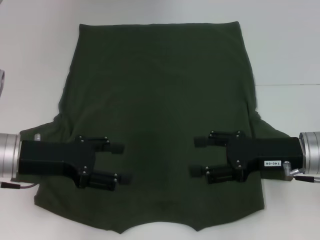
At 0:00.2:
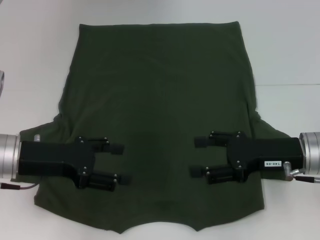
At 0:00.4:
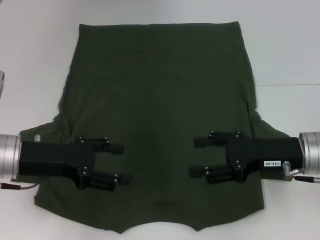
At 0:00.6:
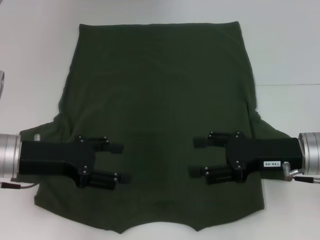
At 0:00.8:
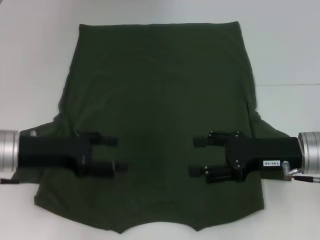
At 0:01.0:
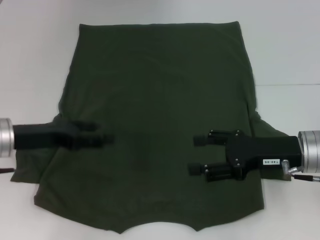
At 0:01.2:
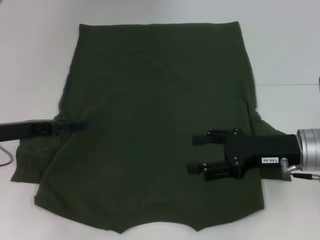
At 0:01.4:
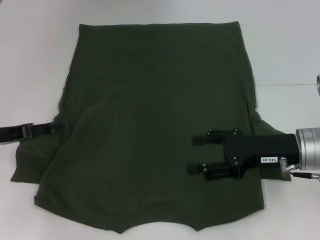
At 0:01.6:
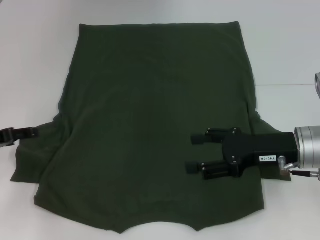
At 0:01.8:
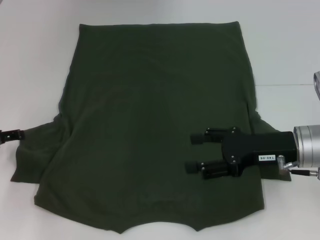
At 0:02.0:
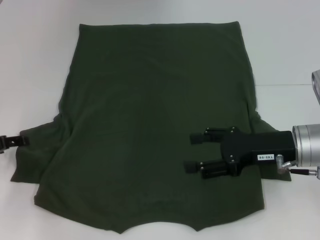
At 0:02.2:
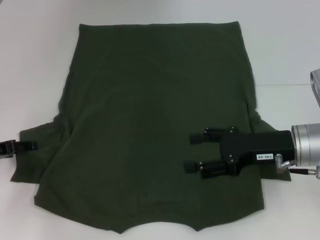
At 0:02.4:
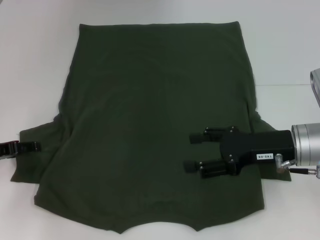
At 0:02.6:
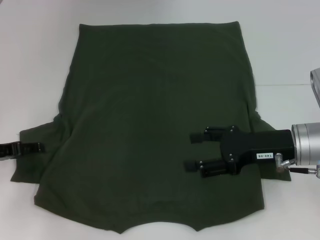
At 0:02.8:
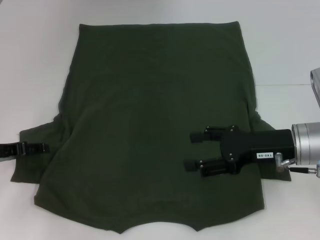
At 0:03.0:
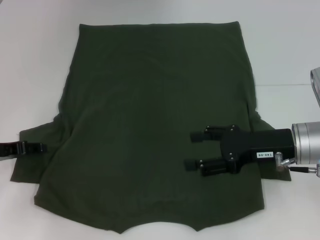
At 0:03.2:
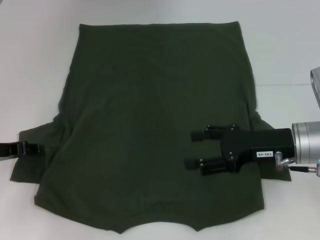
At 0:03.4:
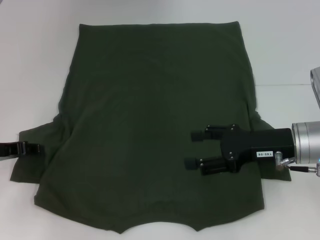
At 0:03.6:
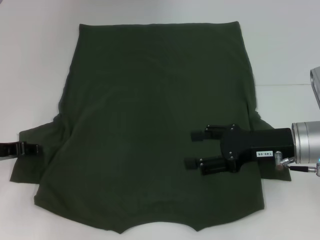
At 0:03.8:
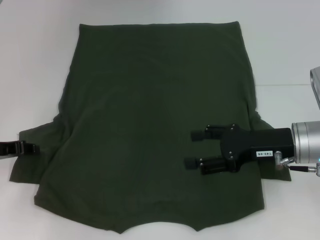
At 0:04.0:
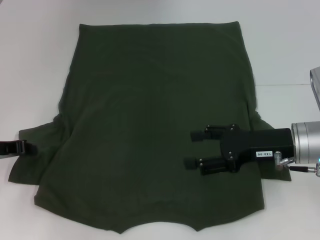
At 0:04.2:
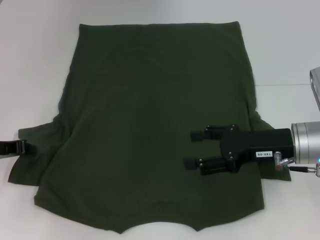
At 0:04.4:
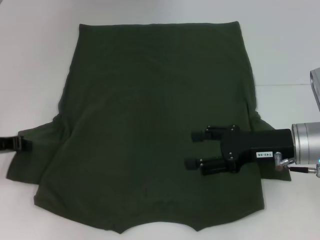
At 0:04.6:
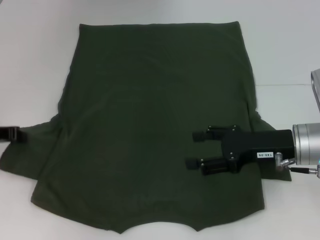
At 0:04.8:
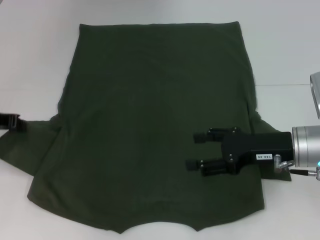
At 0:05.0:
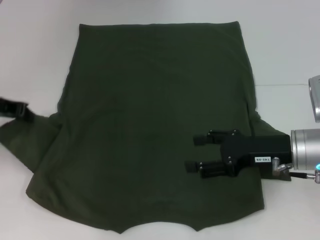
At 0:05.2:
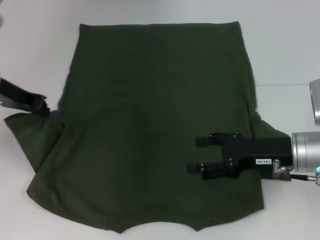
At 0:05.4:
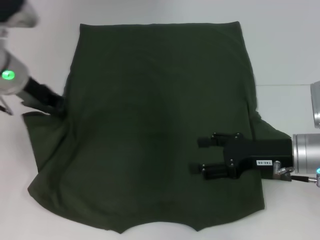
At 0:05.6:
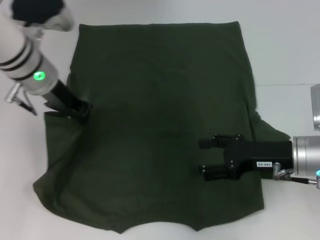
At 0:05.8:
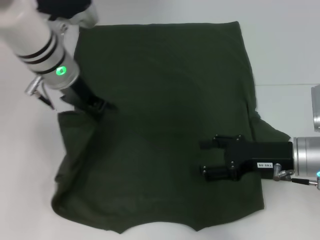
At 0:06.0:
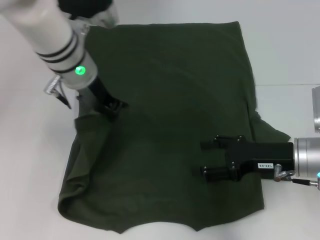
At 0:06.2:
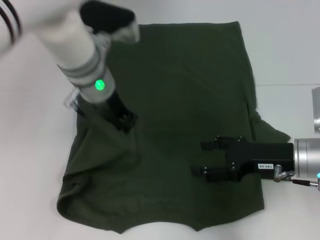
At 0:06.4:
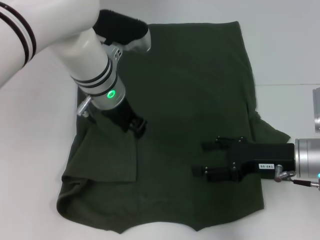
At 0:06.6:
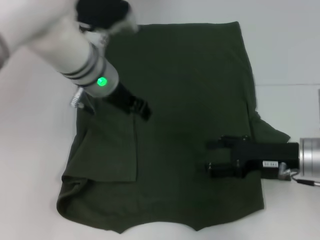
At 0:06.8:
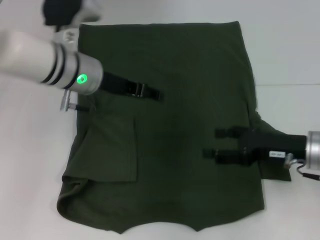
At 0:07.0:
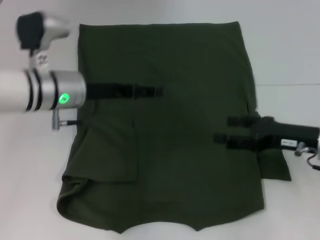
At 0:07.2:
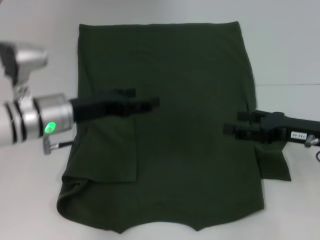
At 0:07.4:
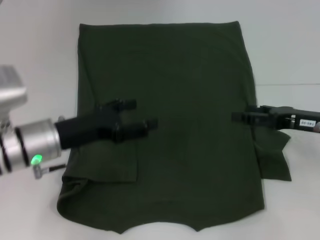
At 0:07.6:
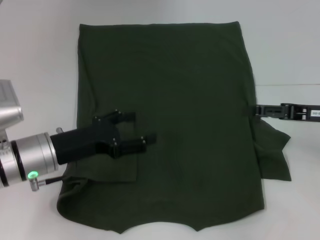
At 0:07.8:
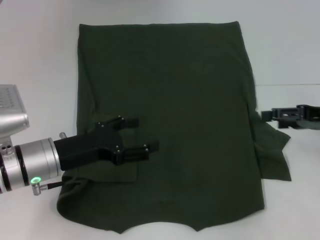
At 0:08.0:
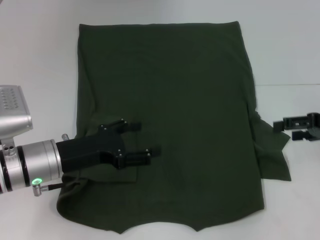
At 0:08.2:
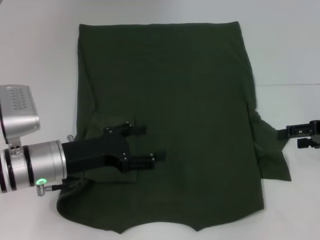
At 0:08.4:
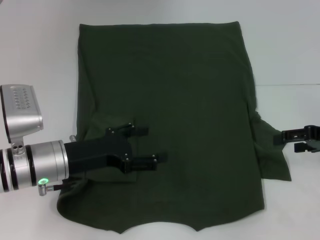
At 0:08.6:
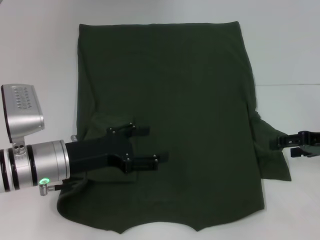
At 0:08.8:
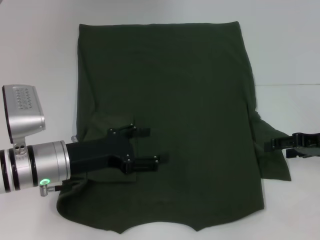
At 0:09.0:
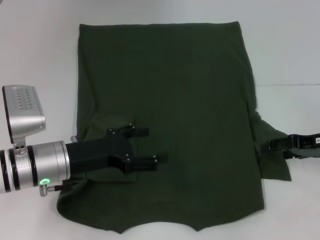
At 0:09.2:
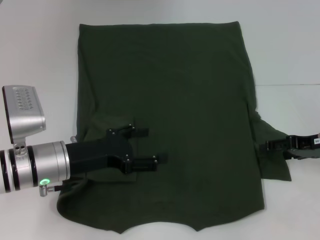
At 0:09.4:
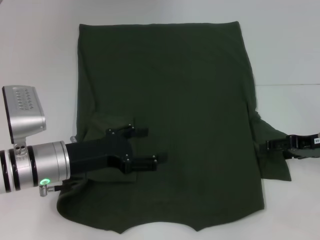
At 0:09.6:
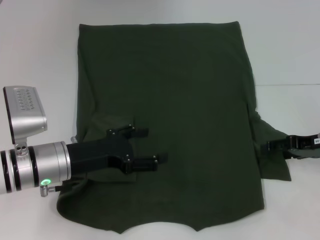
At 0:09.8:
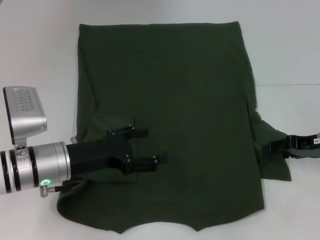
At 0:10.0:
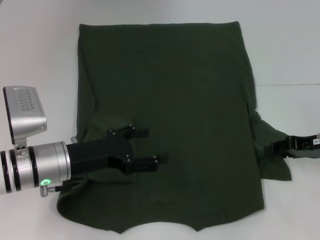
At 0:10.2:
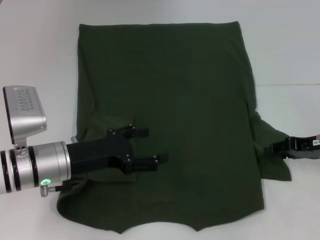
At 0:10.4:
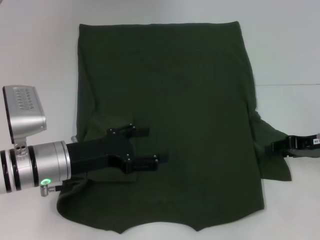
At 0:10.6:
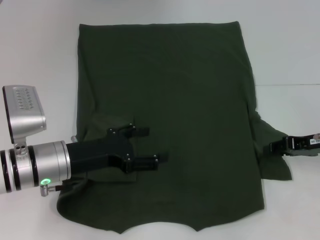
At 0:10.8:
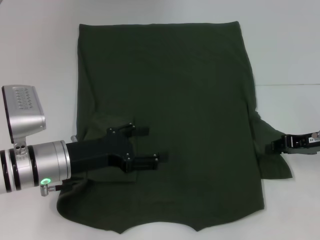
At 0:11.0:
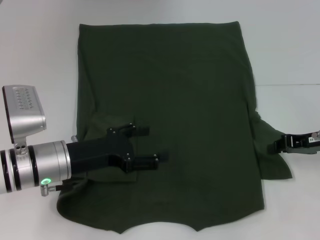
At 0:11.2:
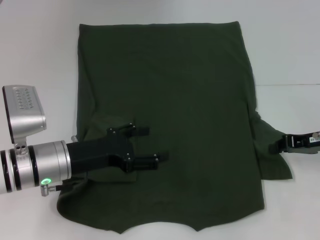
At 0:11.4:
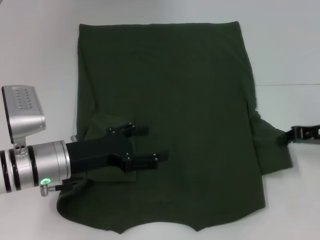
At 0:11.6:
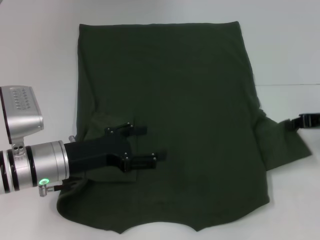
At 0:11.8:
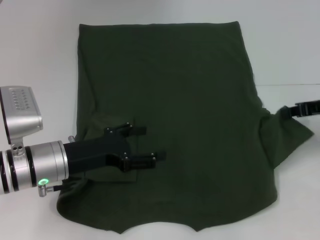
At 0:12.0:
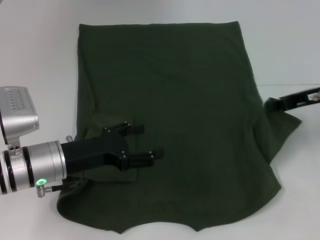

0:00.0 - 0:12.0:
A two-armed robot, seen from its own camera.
Step, 0:00.0 - 0:06.4: Fold the bottom left sleeve with your left hand.
0:00.0 - 0:01.6: The left gripper travels to the left by some 10 cm.
0:01.6 - 0:03.0: There are only small adjustments of the grippers.
0:03.0 - 0:04.4: The left gripper closes its fingers.
0:04.4 - 0:06.0: The left gripper shifts roughly 25 cm to the right and upward.
0:06.0 - 0:07.6: The left gripper is displaced backward, downward and to the left by about 20 cm, and opens up, while the right gripper shifts some 10 cm to the right.
0:10.4 - 0:12.0: The right gripper is displaced upward by roughly 5 cm, and closes.

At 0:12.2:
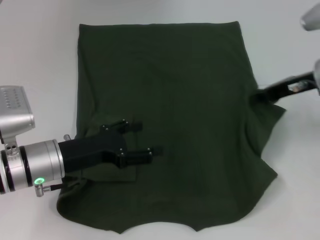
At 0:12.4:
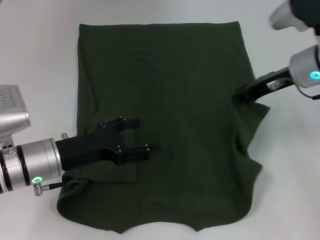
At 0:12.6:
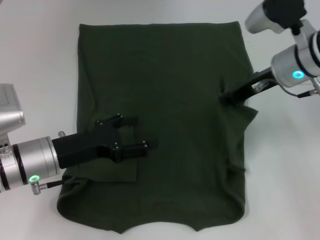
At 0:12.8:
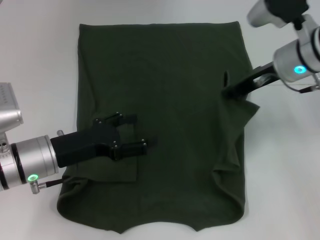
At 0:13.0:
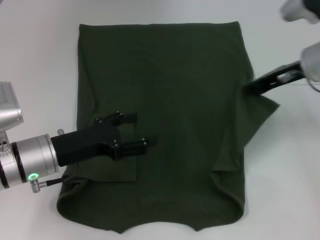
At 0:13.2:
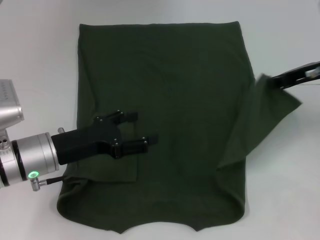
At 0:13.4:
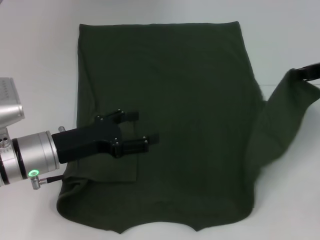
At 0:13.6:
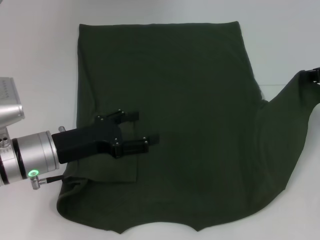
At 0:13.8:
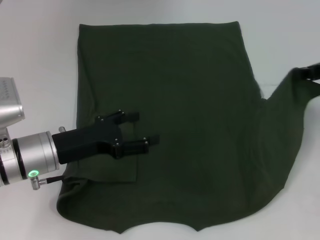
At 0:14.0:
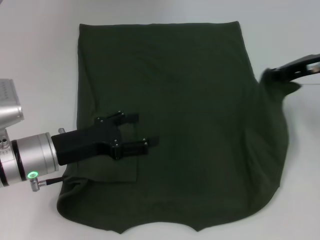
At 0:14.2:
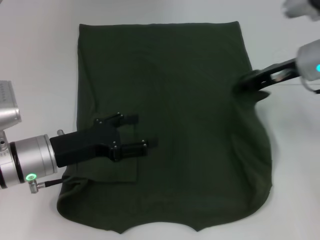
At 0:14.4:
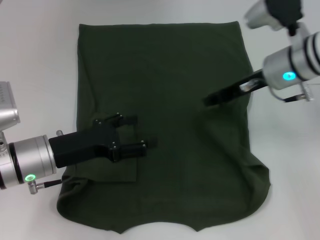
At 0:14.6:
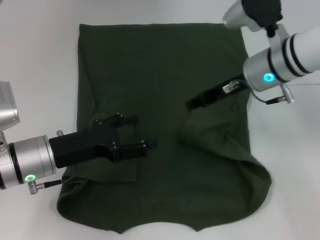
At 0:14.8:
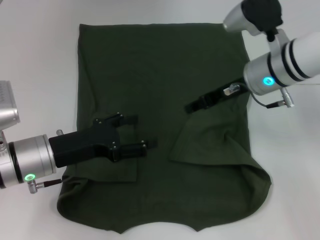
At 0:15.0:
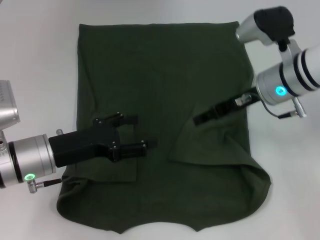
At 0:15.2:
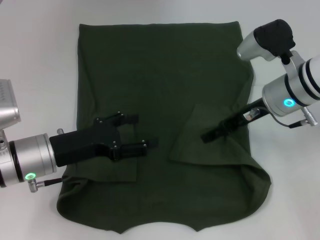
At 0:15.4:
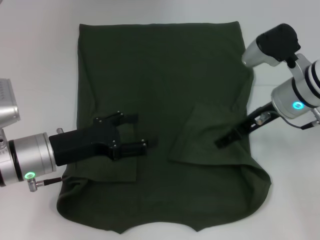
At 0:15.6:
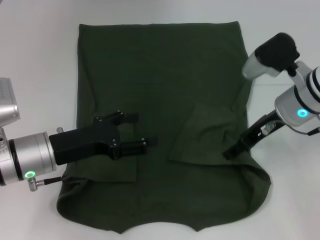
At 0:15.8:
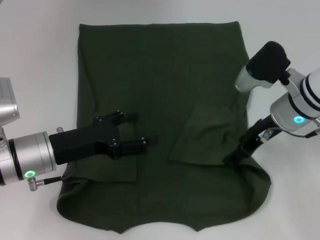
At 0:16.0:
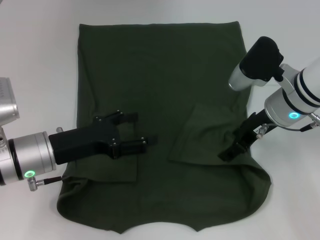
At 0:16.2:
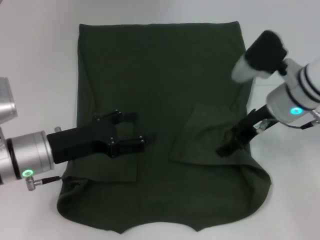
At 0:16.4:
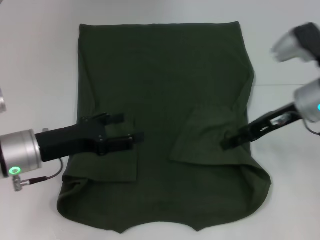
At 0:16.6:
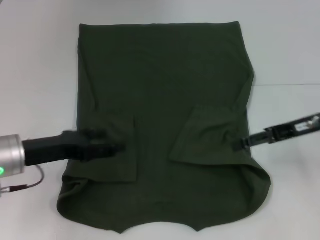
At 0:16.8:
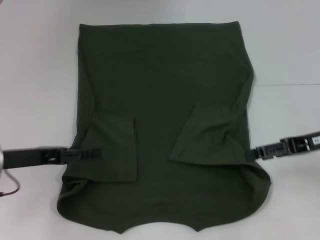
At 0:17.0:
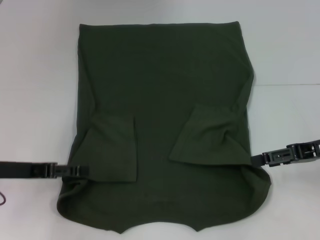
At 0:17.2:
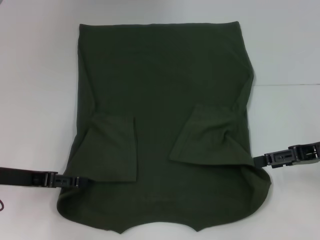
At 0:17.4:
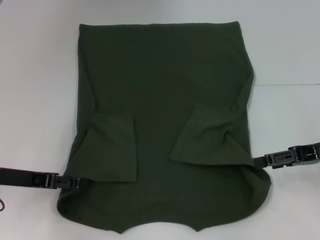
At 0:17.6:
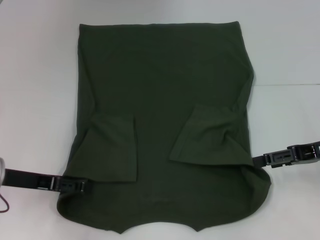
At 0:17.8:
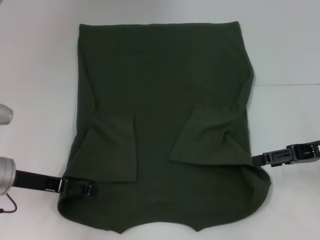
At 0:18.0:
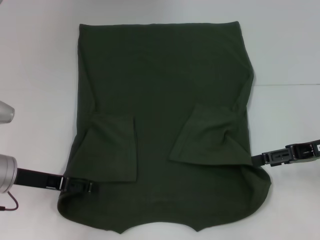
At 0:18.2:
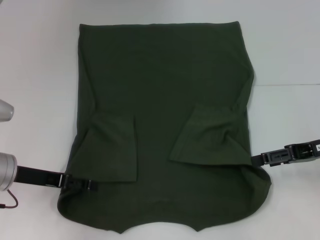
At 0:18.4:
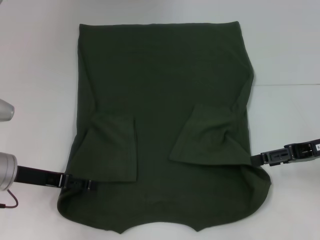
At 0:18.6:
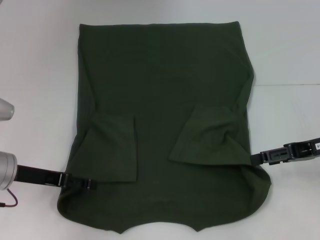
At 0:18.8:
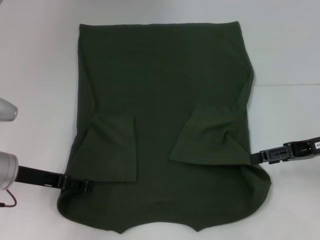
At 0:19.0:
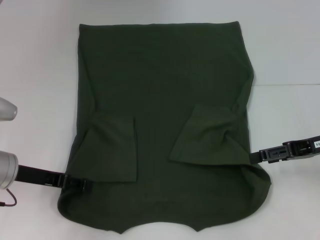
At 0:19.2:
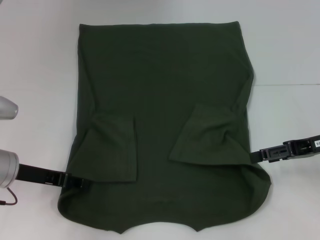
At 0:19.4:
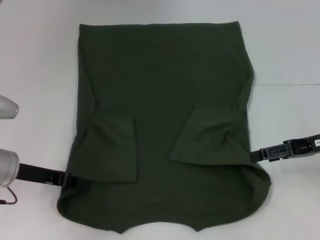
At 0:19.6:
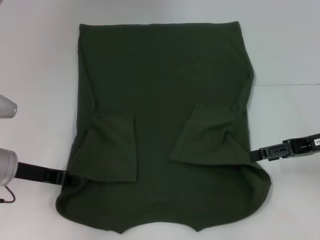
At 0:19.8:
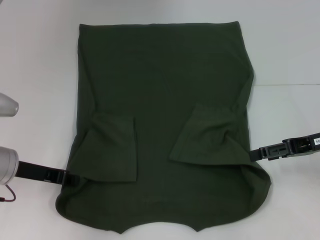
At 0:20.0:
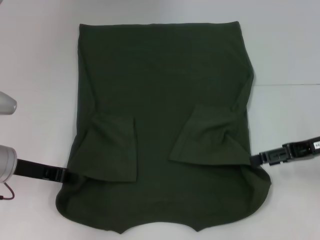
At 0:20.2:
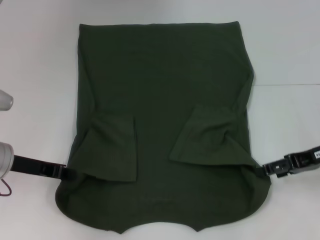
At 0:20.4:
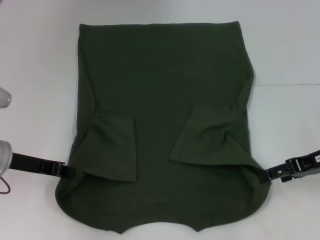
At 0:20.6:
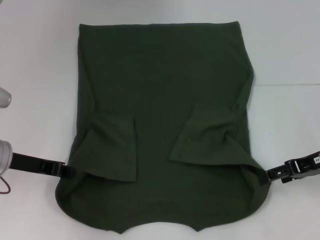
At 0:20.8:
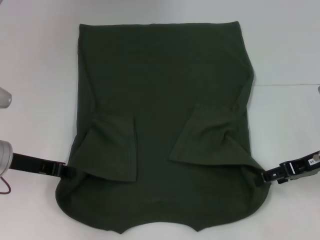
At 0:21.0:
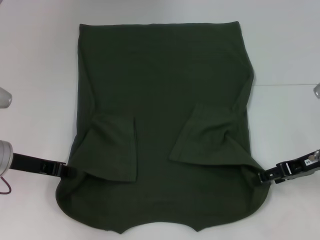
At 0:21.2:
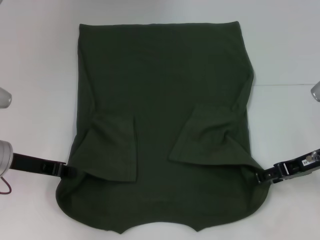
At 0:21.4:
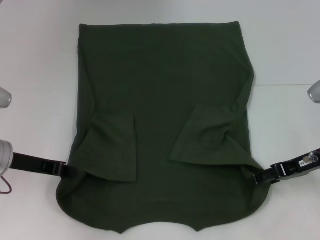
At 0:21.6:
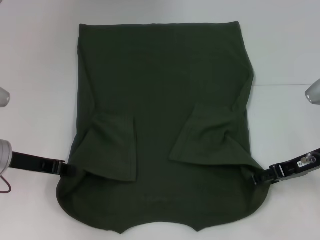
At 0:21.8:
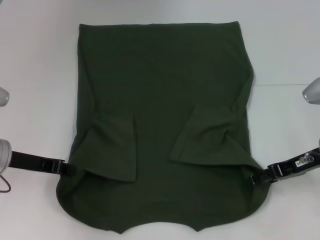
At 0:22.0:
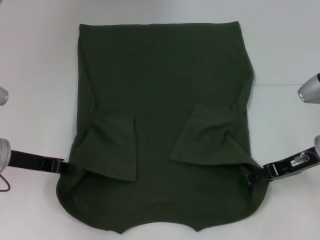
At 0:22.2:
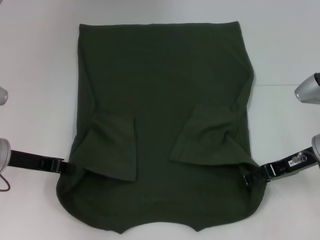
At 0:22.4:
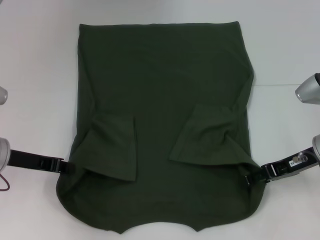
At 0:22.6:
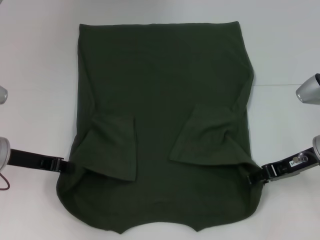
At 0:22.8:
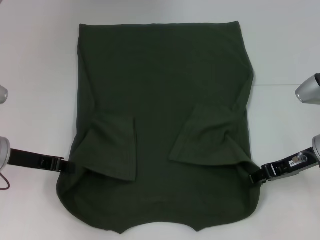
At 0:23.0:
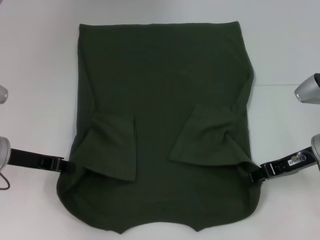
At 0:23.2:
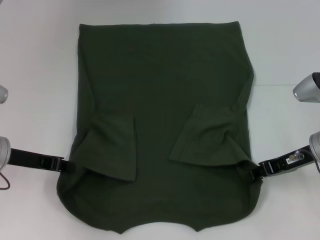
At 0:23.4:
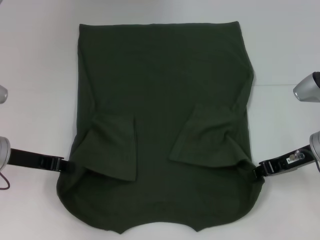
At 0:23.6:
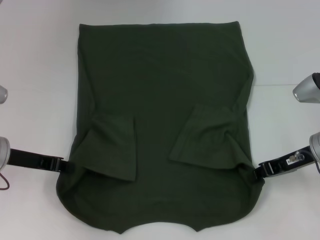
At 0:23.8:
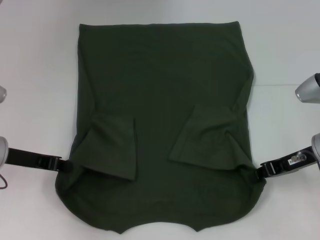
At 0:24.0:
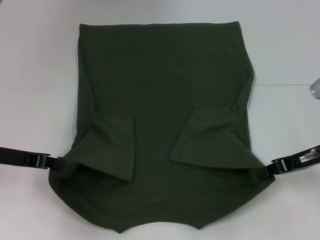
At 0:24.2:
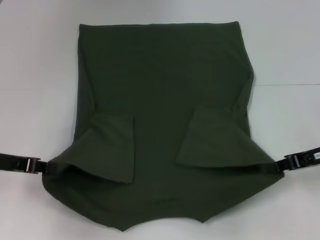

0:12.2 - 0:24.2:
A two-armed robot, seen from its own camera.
Step, 0:12.2 - 0:15.0: Fold the bottom right sleeve with your right hand.
Step, 0:15.2 - 0:19.8: Grab the bottom left corner with your left hand.
Step, 0:20.0 - 0:23.2: Grab the bottom right corner with your right hand.
0:12.2 - 0:13.8: The right gripper moves to the right, approximately 5 cm.
0:13.8 - 0:15.2: The right gripper shifts roughly 15 cm to the left, and opens its fingers.
0:15.2 - 0:16.6: The right gripper shifts approximately 10 cm to the right.
0:18.2 - 0:19.8: The left gripper closes up.
0:19.8 - 0:22.6: The grippers make only small movements.
0:22.6 - 0:24.2: The right gripper closes.
